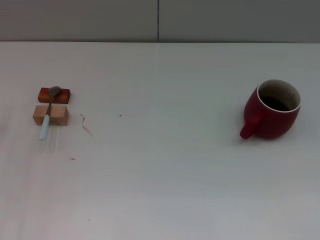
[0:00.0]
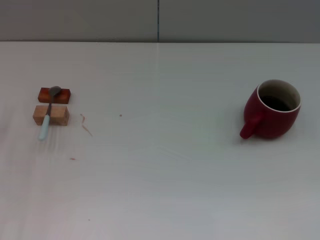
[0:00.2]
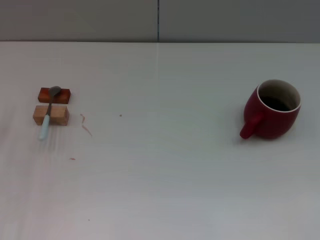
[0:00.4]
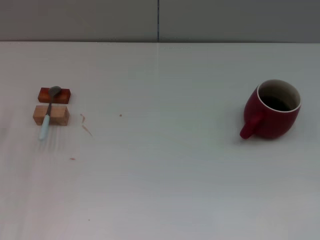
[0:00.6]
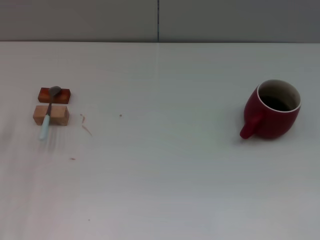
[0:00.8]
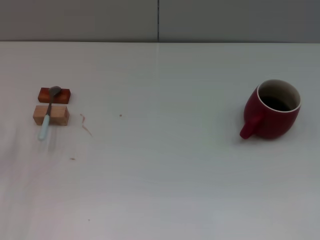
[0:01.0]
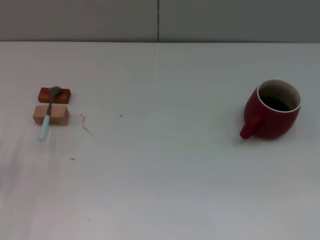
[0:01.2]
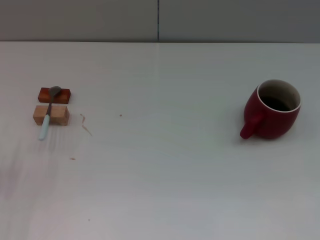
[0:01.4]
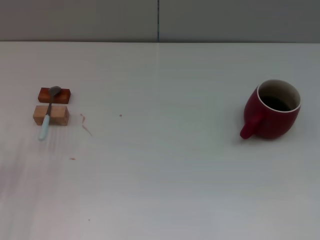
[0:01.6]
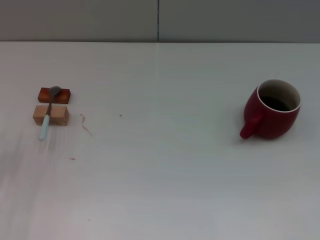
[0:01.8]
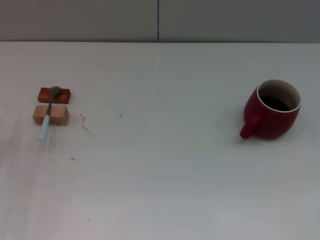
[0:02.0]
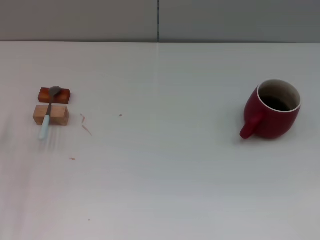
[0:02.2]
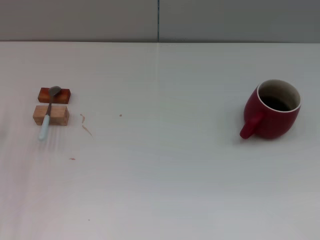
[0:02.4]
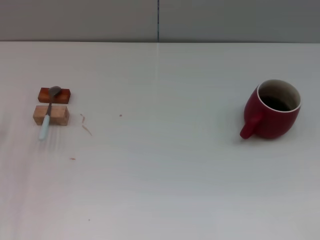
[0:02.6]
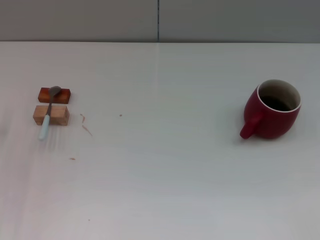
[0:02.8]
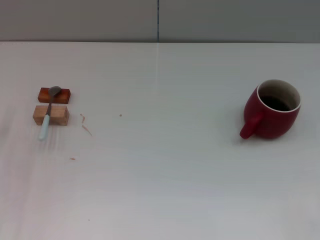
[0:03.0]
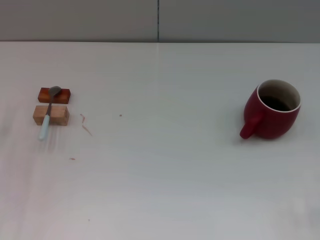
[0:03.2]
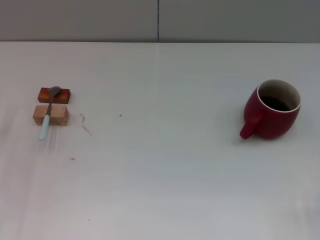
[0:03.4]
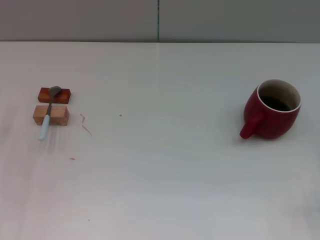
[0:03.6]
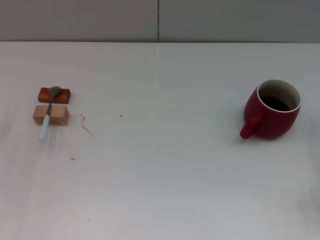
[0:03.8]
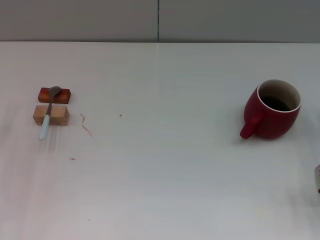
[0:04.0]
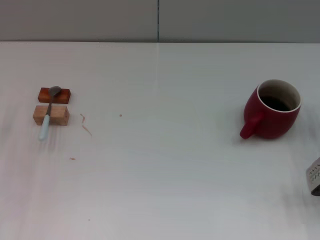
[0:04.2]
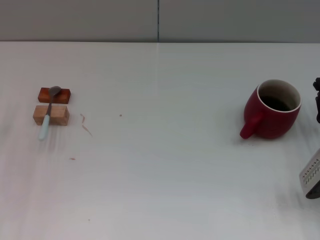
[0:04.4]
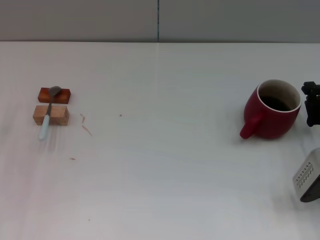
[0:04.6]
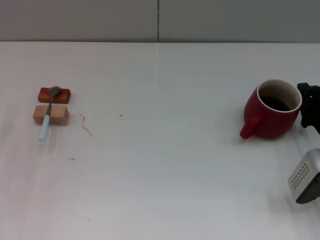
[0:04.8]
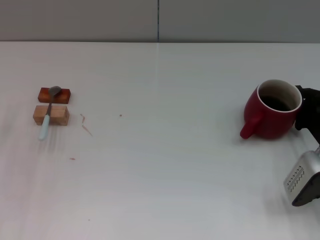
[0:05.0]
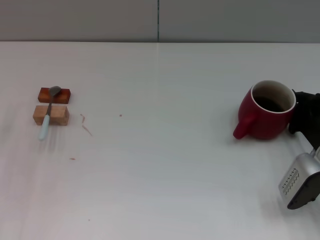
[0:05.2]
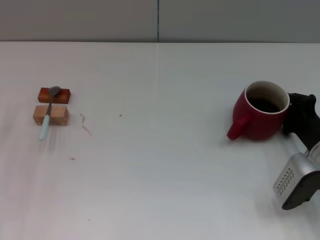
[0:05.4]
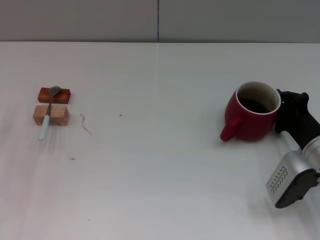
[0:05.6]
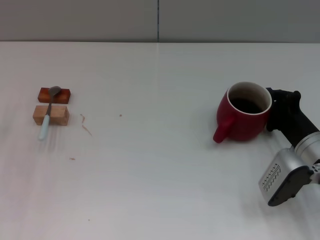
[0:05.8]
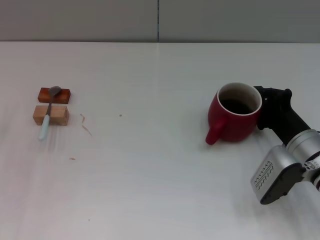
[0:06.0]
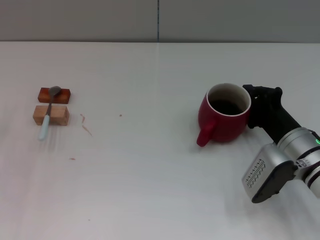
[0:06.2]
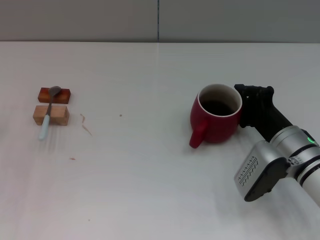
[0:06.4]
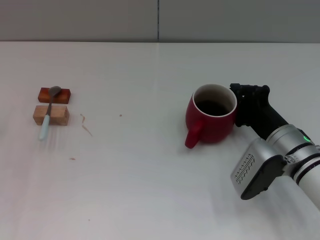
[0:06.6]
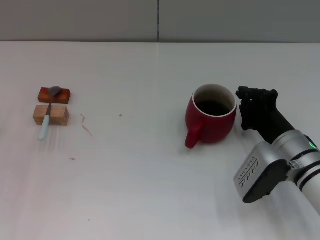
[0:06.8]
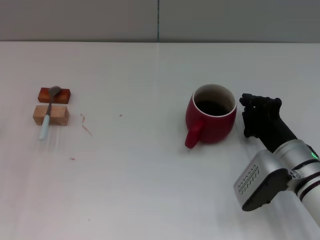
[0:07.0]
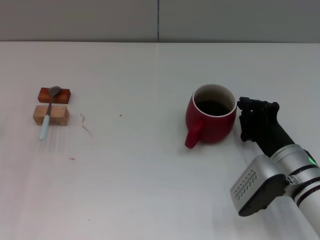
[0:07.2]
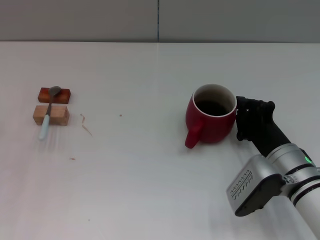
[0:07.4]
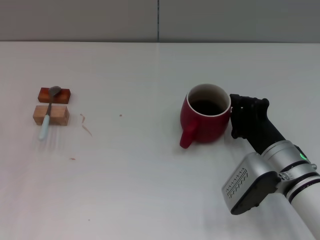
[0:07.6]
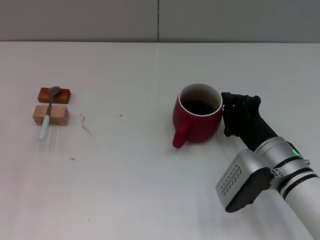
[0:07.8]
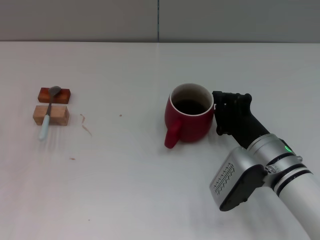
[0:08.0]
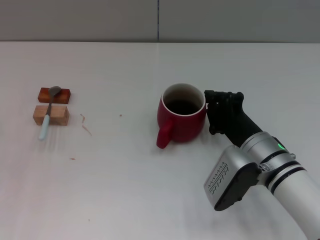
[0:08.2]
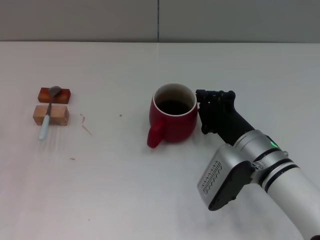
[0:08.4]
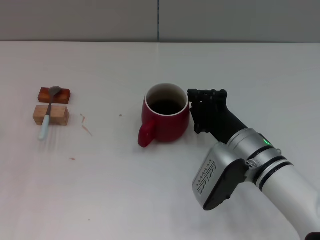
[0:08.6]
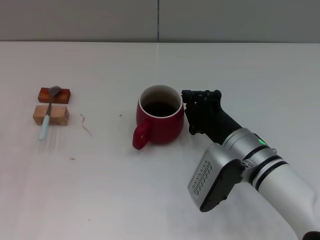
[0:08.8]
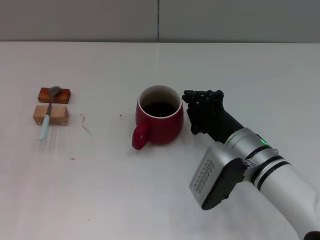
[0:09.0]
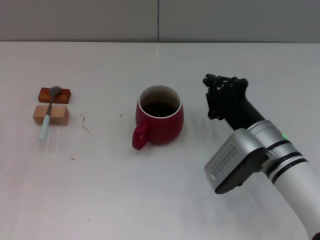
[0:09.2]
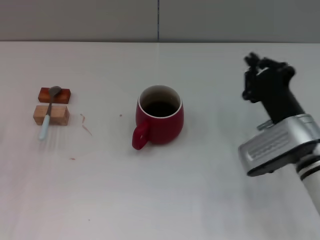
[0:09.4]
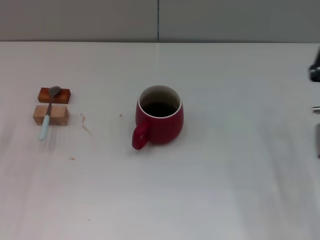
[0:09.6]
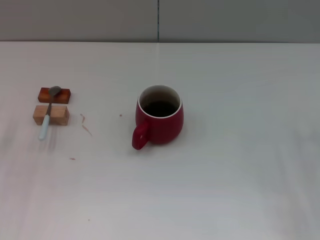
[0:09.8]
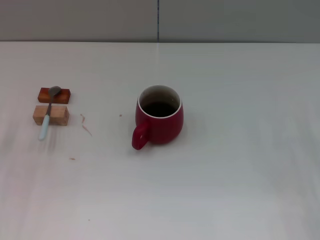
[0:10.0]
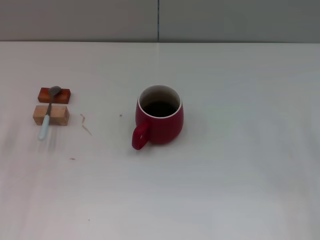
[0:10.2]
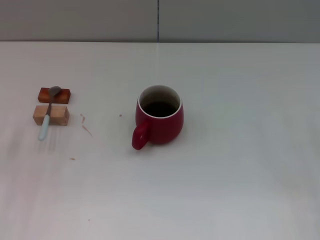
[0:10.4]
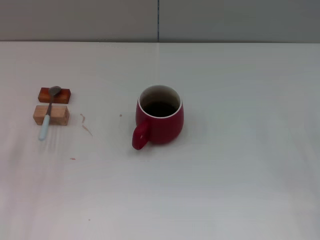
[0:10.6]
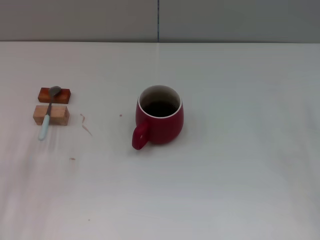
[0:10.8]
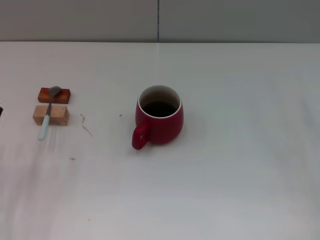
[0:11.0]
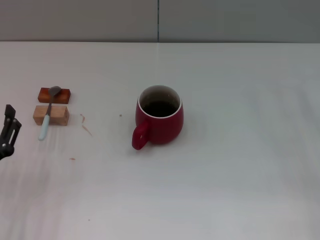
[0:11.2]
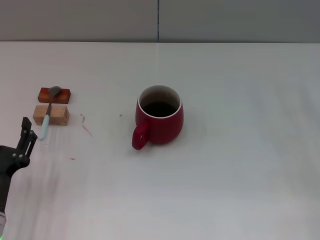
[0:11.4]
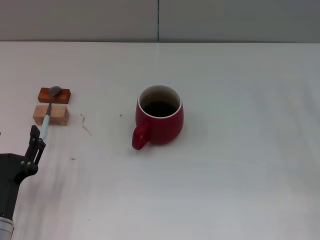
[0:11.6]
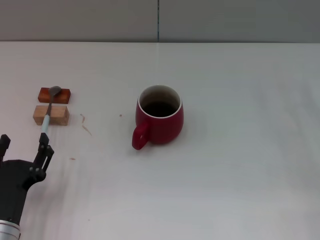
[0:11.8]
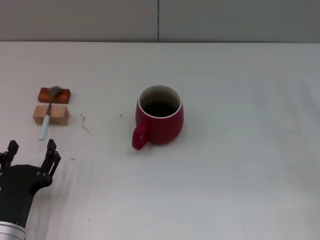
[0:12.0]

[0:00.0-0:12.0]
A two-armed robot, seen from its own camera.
Task of the whole recording: Move the red cup to the center, lift the blue spoon, stir it three times in the cup, and put the spoon into the cup.
Step, 0:00.0 to 0:09.0: Move the cup with coffee to the center of view with the right gripper.
0:01.6 to 0:03.0: The left gripper moves forward, approximately 10 cm.
0:03.0 to 0:04.4: The right gripper heads to the left and forward, covering approximately 10 cm.
0:04.4 to 0:06.0: The right gripper goes some 10 cm to the left.
0:06.0 to 0:07.6: The right gripper moves some 5 cm.
0:07.6 to 0:09.0: The right gripper shifts about 5 cm to the left.
0:09.0 to 0:10.4: The right gripper moves to the right, some 20 cm, and opens its fingers.
0:10.4 to 0:12.0: The left gripper moves to the right, backward and downward, approximately 15 cm.

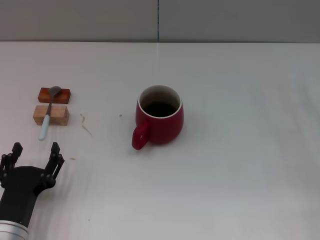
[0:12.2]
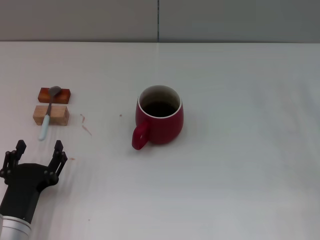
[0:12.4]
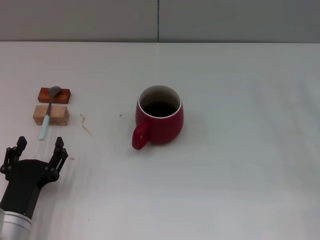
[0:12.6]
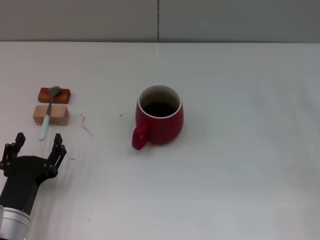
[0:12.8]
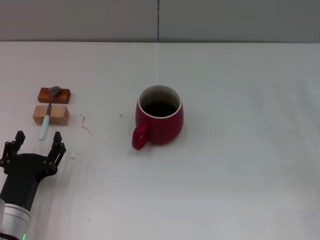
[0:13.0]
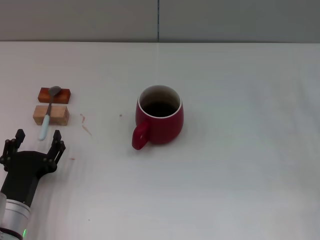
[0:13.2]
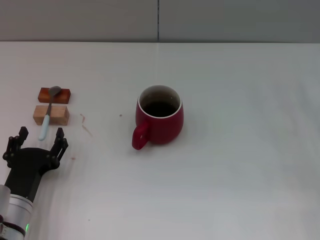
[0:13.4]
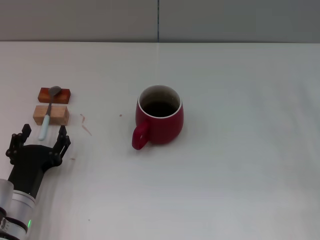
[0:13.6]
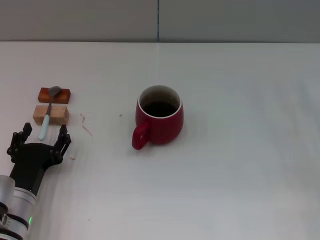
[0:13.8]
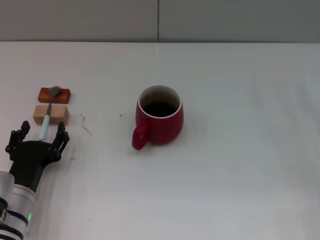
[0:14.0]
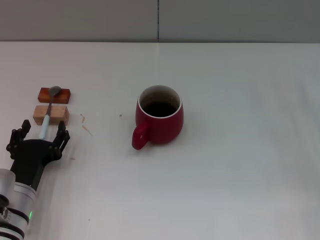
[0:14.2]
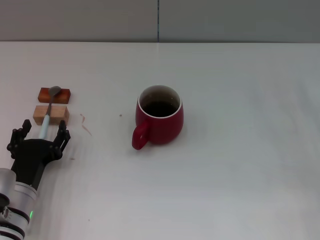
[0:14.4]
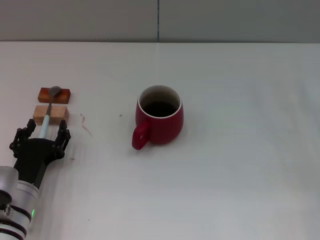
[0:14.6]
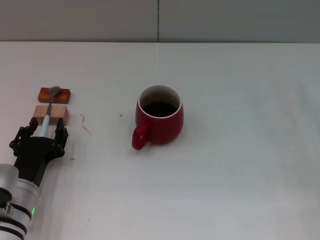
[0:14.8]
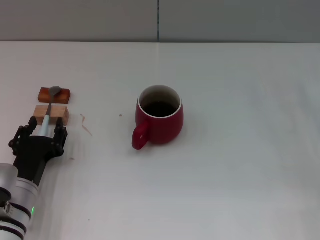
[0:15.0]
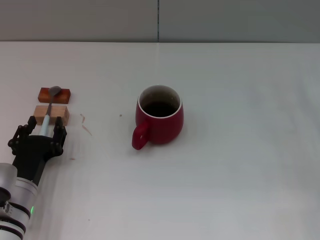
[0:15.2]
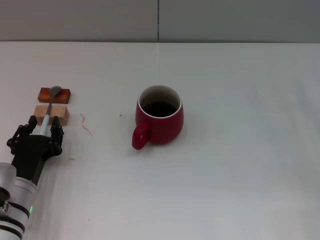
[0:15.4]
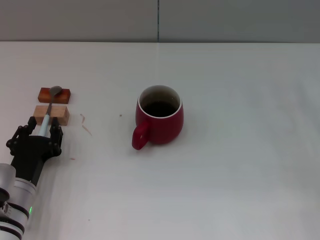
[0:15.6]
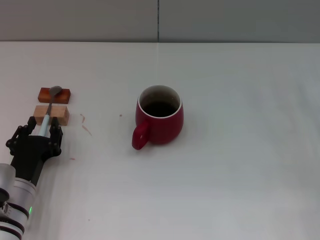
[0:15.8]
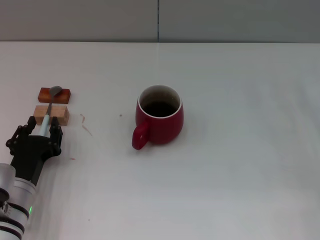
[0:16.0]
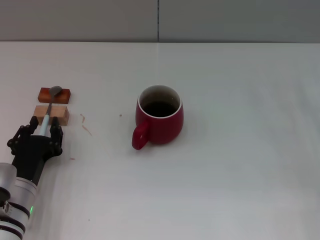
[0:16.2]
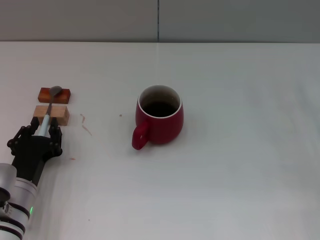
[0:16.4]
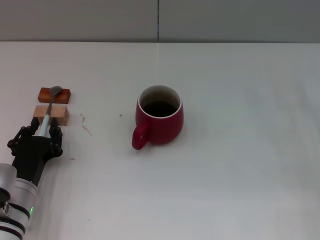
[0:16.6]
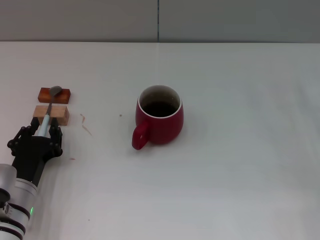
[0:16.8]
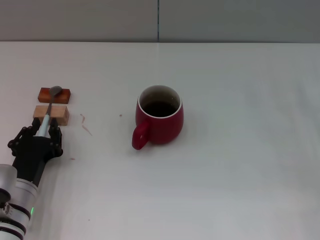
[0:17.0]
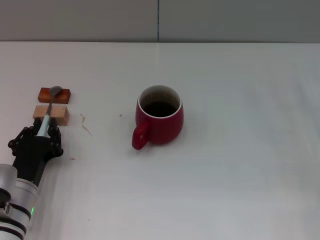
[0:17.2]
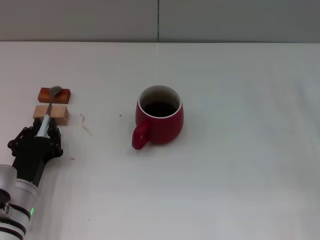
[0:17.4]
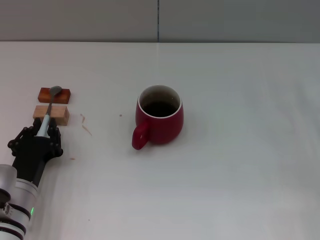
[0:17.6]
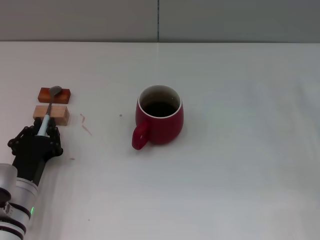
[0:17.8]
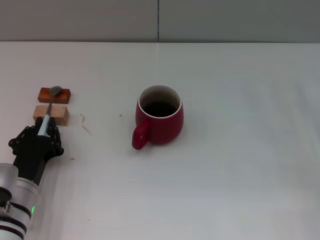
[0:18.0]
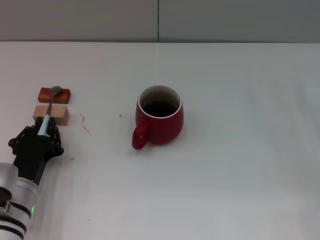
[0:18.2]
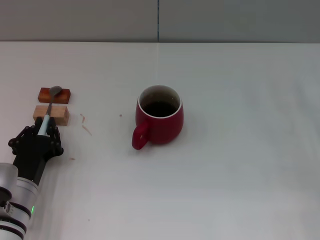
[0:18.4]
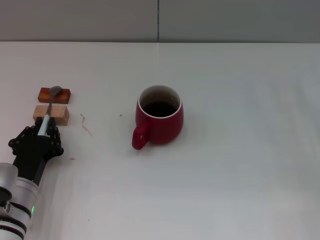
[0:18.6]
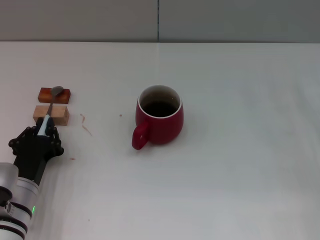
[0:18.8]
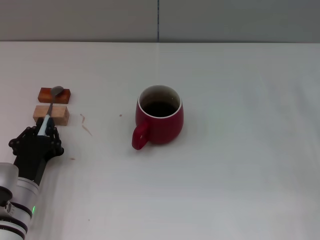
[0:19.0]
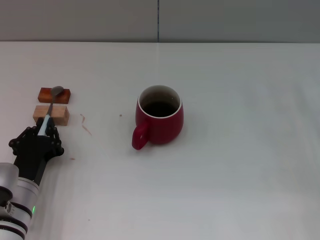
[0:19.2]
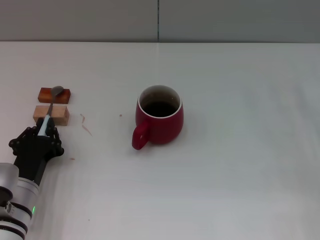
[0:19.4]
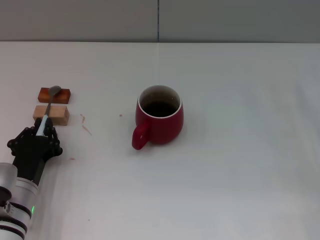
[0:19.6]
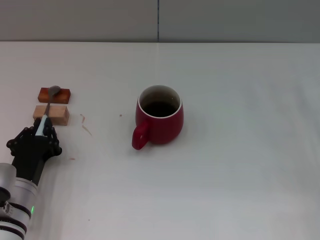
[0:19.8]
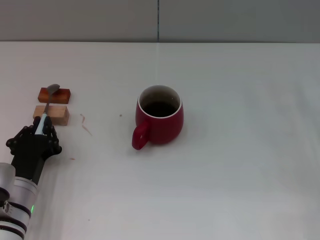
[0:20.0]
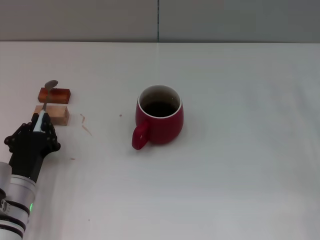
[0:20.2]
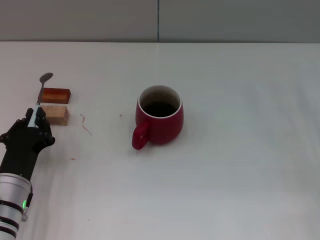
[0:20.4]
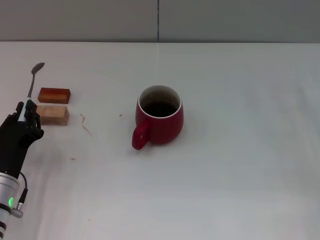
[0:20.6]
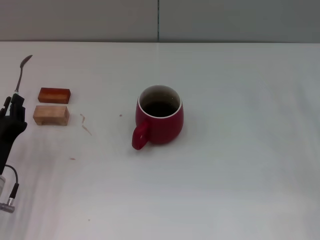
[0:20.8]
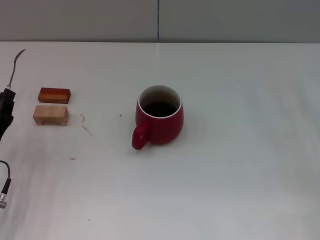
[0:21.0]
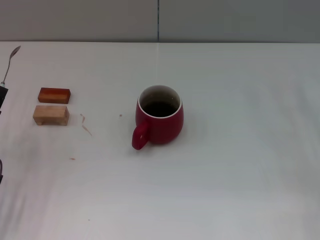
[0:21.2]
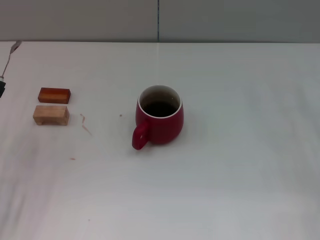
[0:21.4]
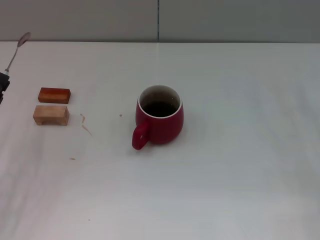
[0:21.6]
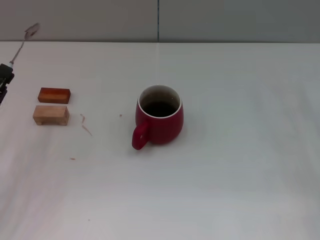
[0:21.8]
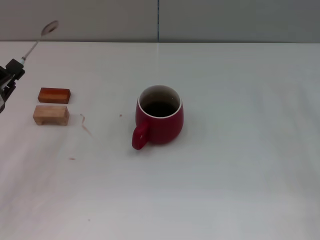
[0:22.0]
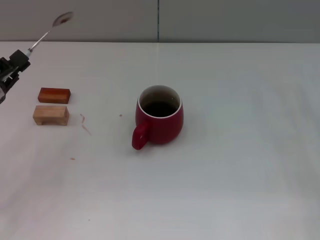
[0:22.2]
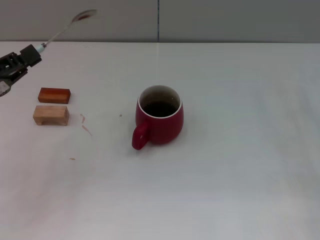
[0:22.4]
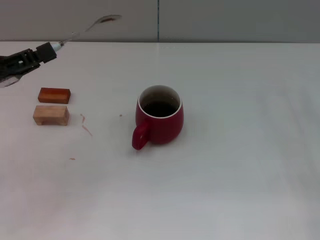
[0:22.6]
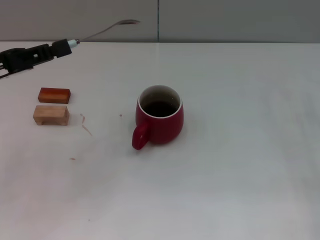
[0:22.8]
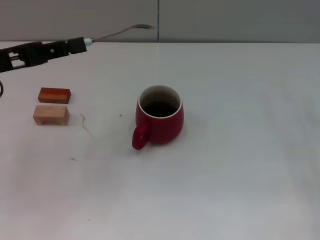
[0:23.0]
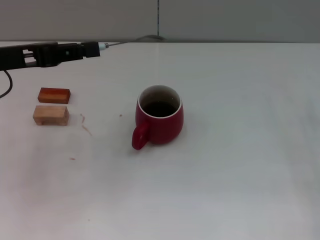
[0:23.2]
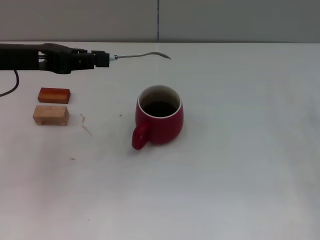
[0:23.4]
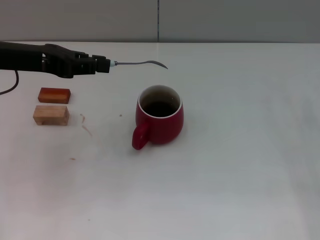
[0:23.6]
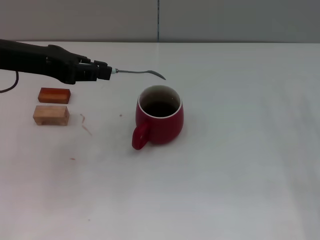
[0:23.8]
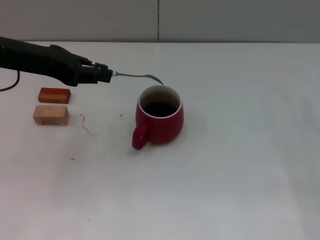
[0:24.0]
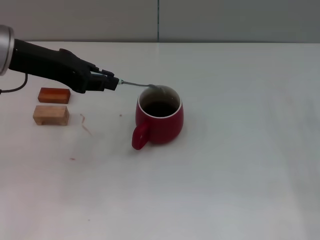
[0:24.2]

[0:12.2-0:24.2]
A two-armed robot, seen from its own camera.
Task of the whole recording: Move the red cup to the center, lift the blue spoon, stir it three times in the cup, and put the spoon into the cup.
Step, 0:12.2 to 0:21.0: Pick up the spoon with the left gripper.
0:12.2 to 0:13.8: The left gripper shifts approximately 5 cm forward.
0:13.8 to 0:15.2: The grippers stay close to where they were, moving slightly.
0:15.2 to 0:19.8: Both grippers stay put.
0:19.8 to 0:21.2: The left gripper travels to the left by roughly 5 cm.
0:21.2 to 0:22.6: The left gripper moves upward and forward, approximately 15 cm.
0:22.6 to 0:24.2: The left gripper is displaced to the right, upward and forward by some 15 cm.
